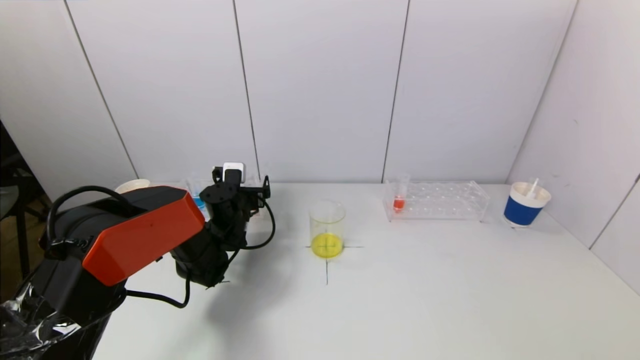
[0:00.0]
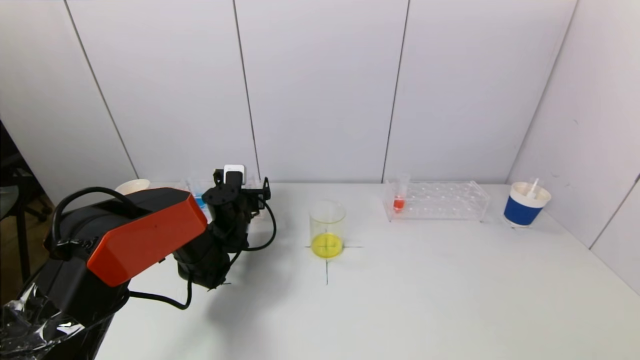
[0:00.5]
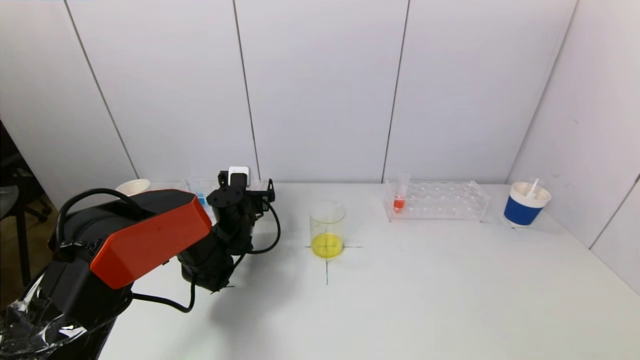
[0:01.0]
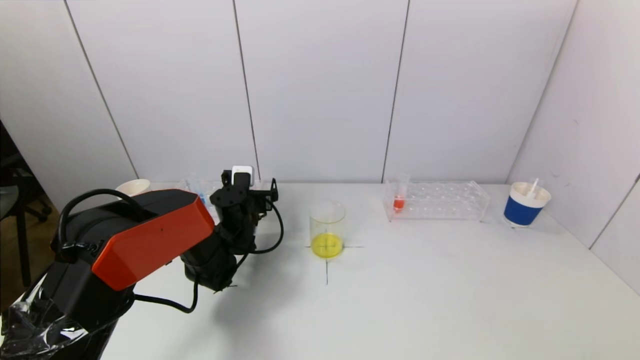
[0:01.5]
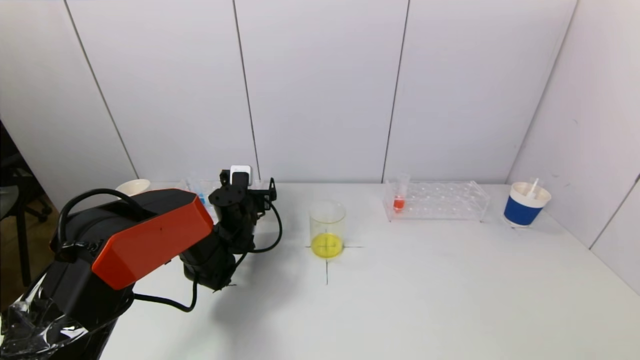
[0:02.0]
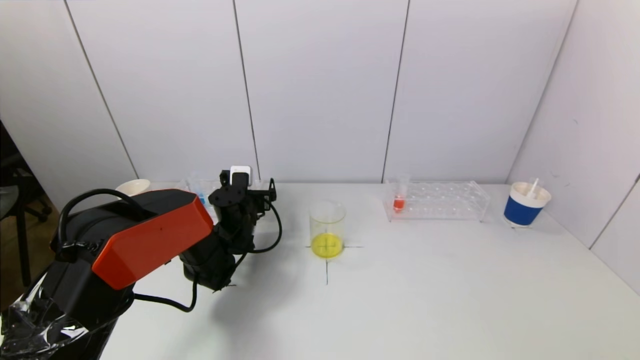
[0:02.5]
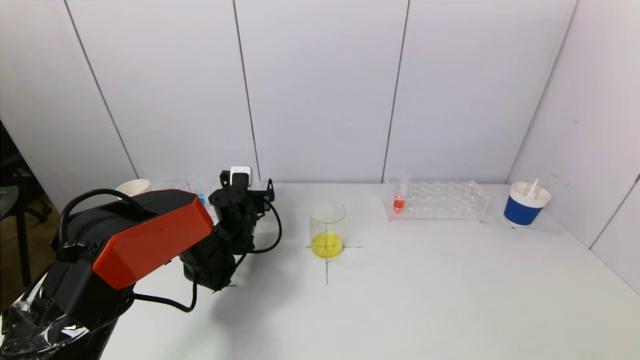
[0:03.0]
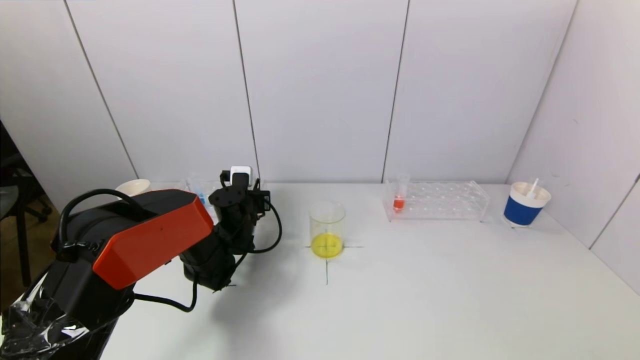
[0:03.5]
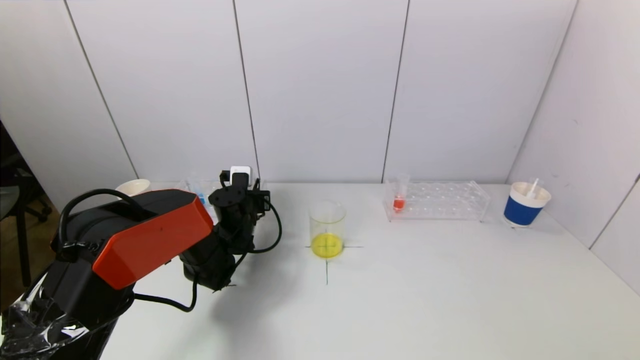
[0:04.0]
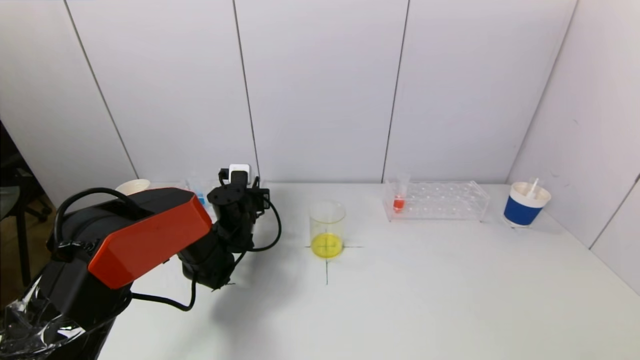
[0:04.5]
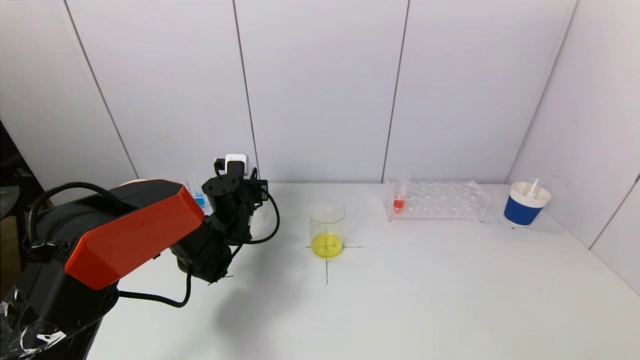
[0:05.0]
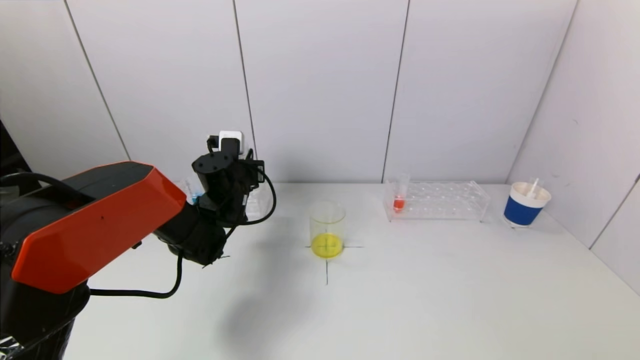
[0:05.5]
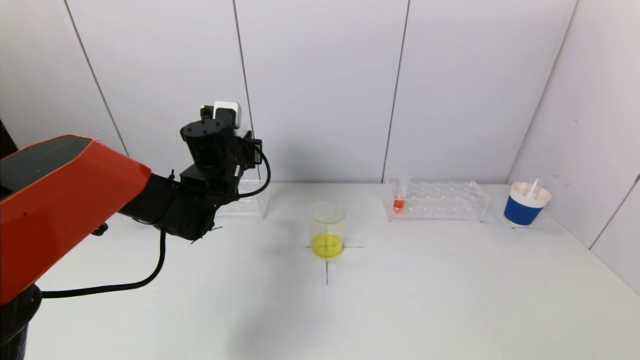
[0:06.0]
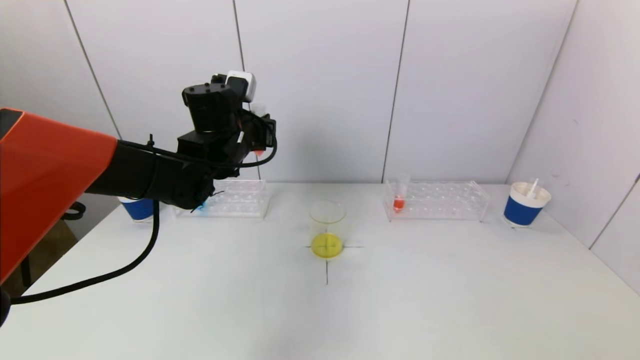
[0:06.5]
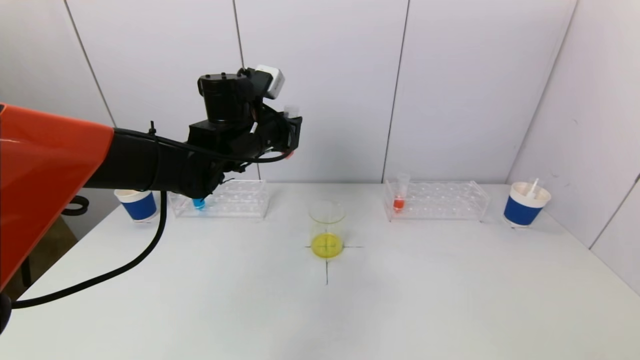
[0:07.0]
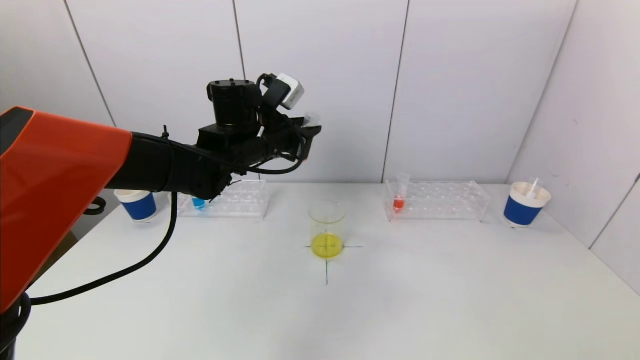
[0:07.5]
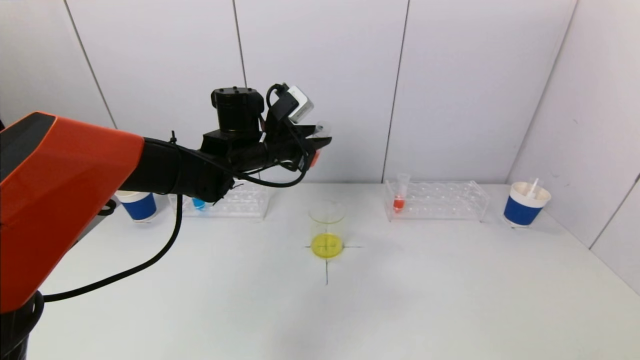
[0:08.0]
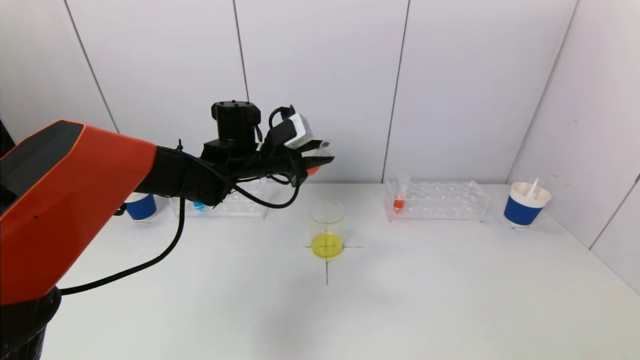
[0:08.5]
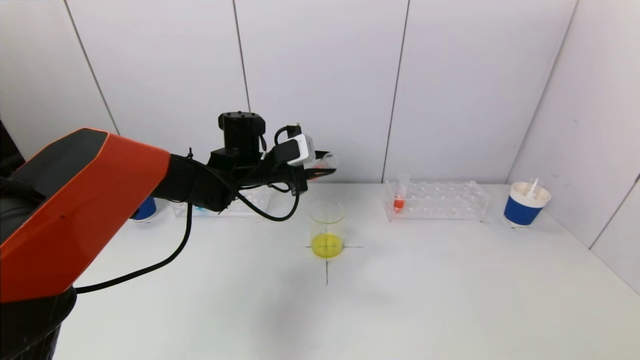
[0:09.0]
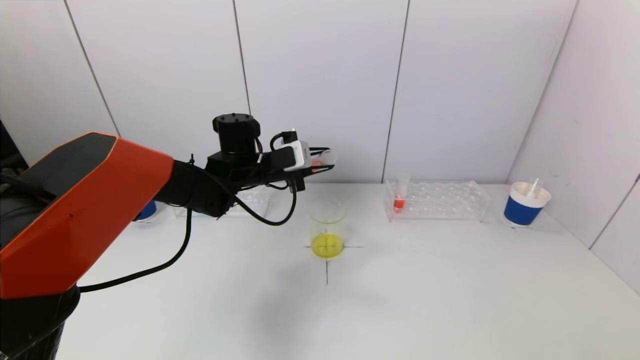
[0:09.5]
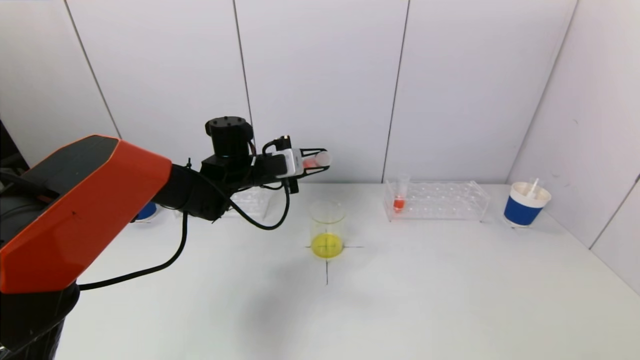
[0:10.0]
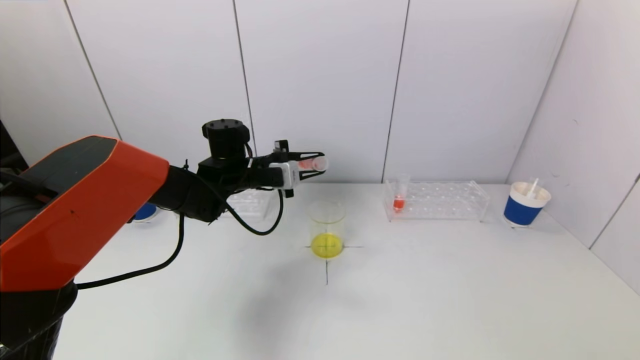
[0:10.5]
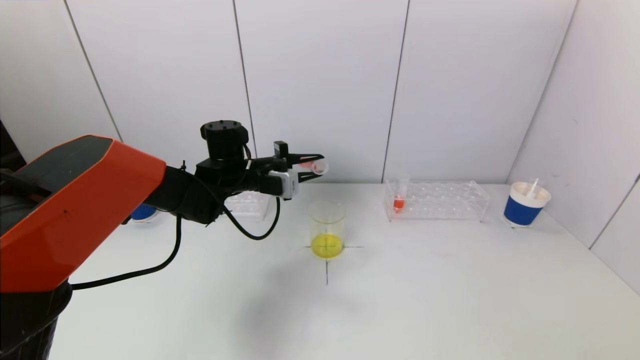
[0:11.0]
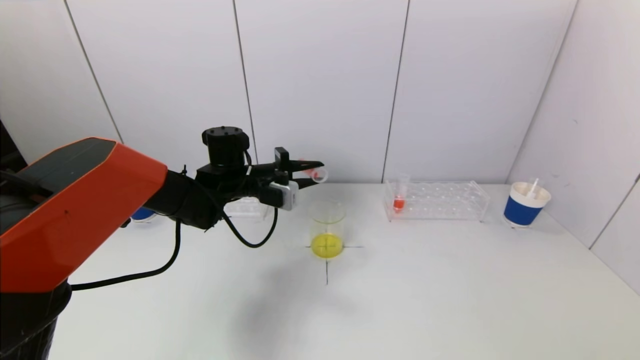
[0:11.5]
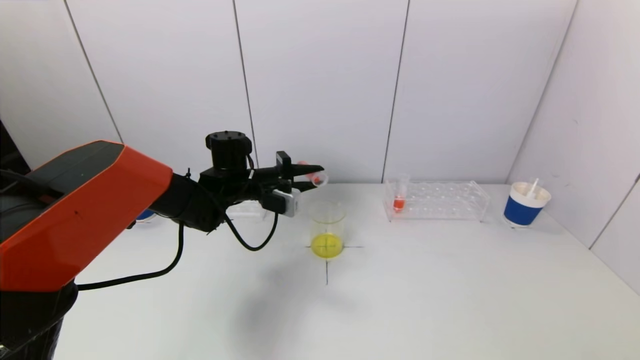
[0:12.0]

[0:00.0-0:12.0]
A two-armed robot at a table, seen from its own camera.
Task of the whole recording: pick up a test tube with pigment on left test tube rack and a test tube with pigment on right test tube rack by grippers and pour them into the beaker.
Step, 0:00.0 to 0:04.0: Grasp the red reagent with the left gripper.
0:00.0 to 0:02.0: The grippers make only small movements.
0:04.0 to 0:06.0: The left gripper moves upward, some 15 cm.
0:06.0 to 0:08.0: The left gripper travels to the right by approximately 5 cm.
0:08.0 to 0:10.0: The left gripper moves downward, approximately 5 cm.

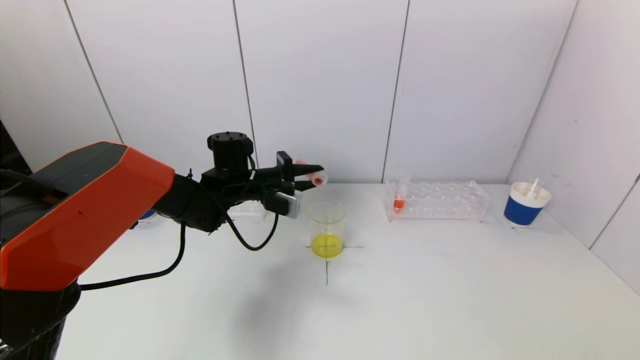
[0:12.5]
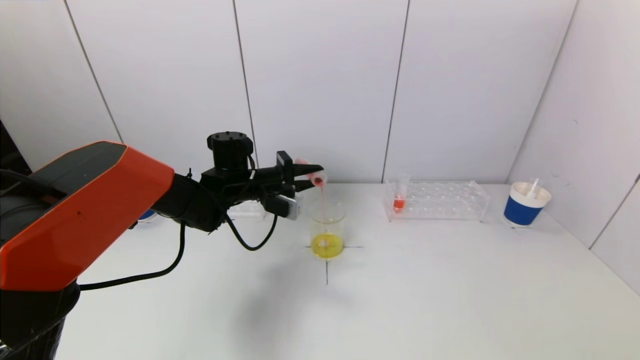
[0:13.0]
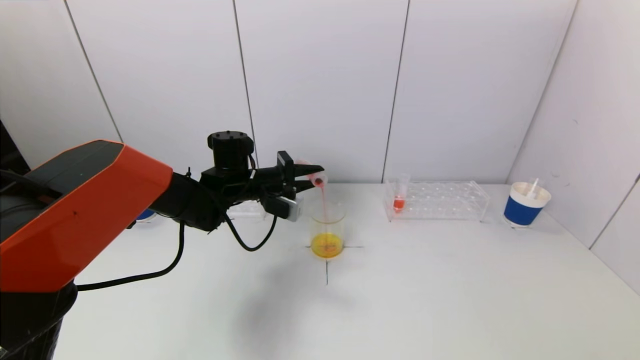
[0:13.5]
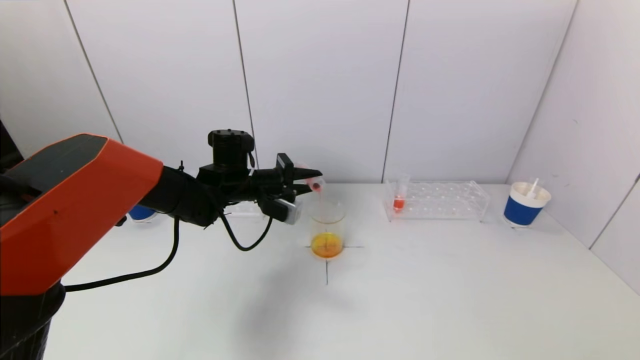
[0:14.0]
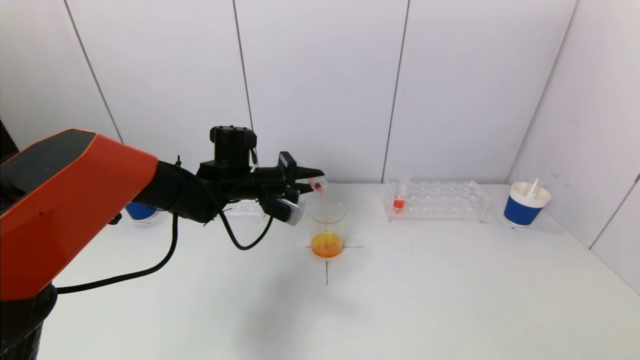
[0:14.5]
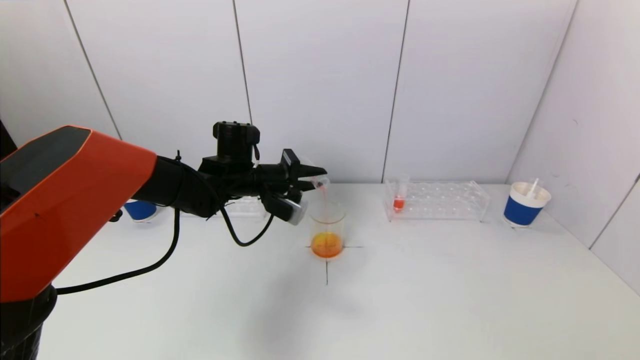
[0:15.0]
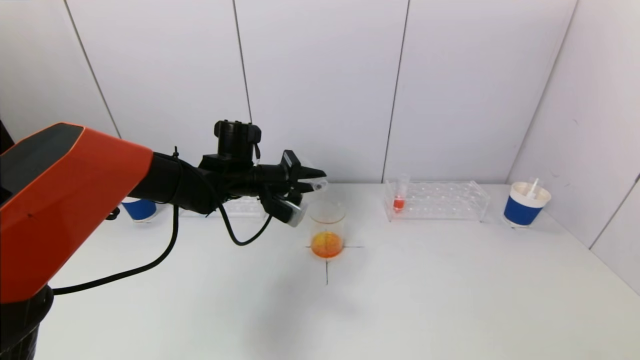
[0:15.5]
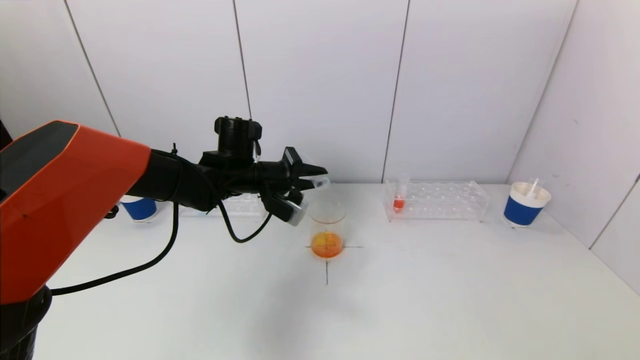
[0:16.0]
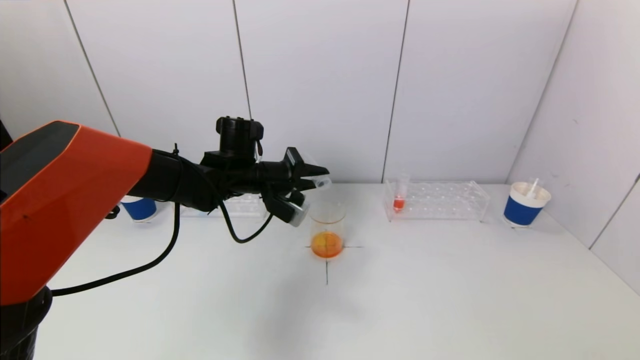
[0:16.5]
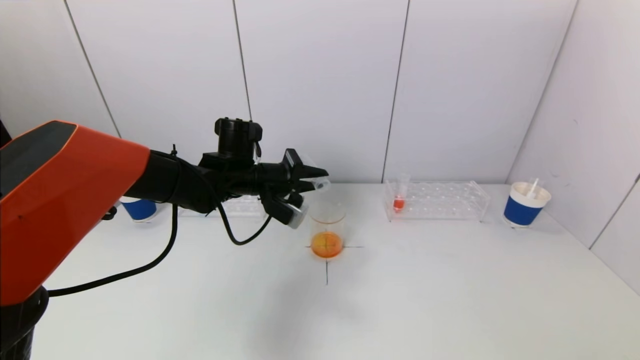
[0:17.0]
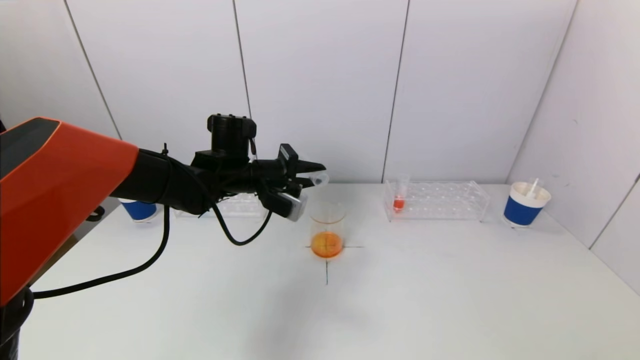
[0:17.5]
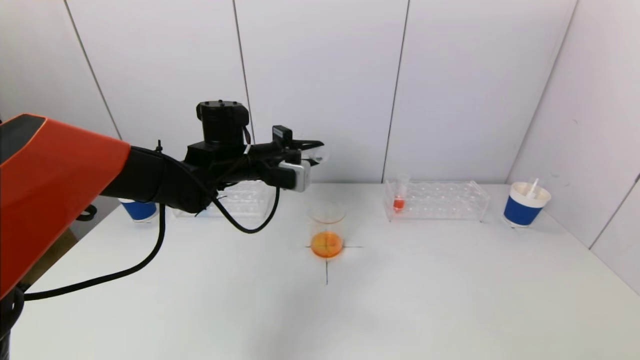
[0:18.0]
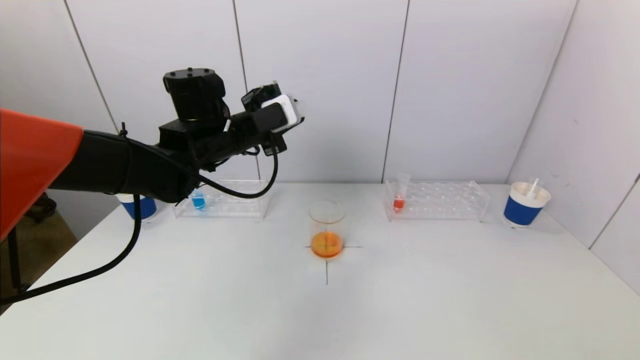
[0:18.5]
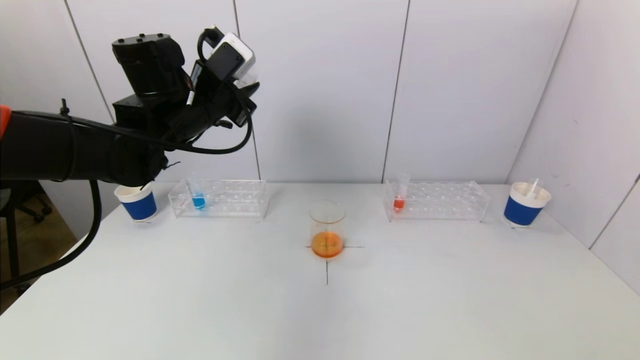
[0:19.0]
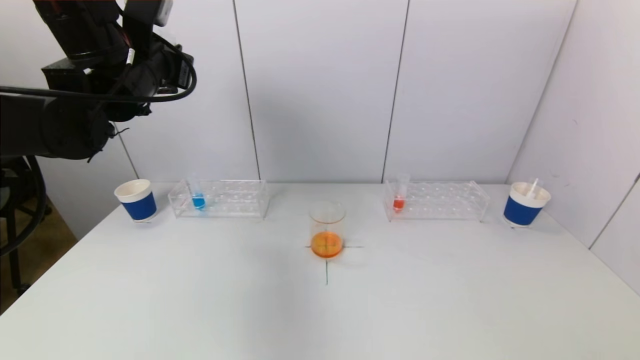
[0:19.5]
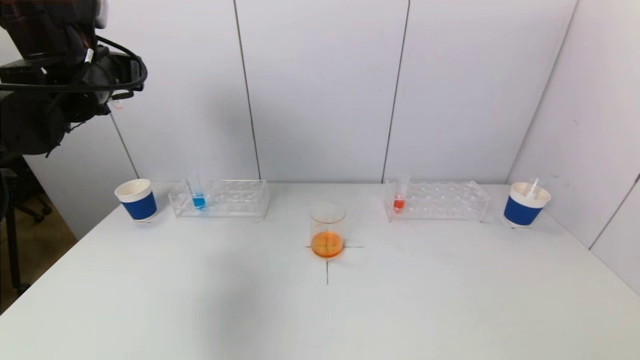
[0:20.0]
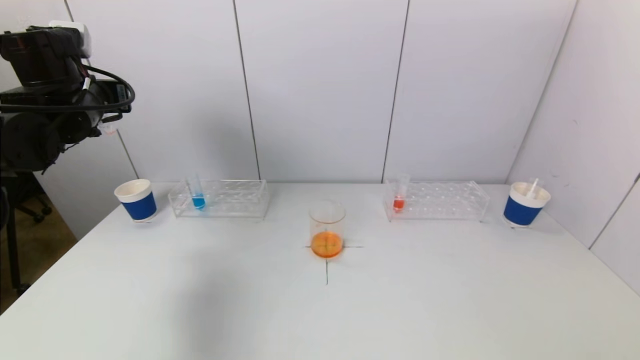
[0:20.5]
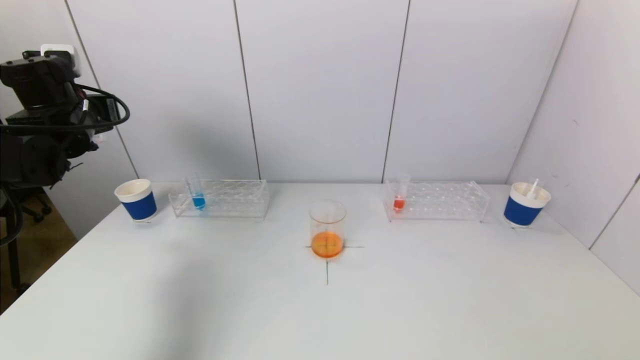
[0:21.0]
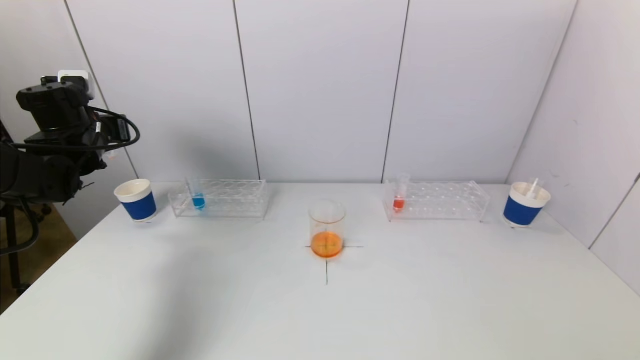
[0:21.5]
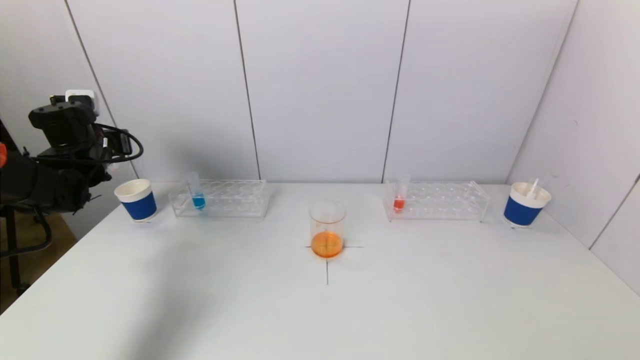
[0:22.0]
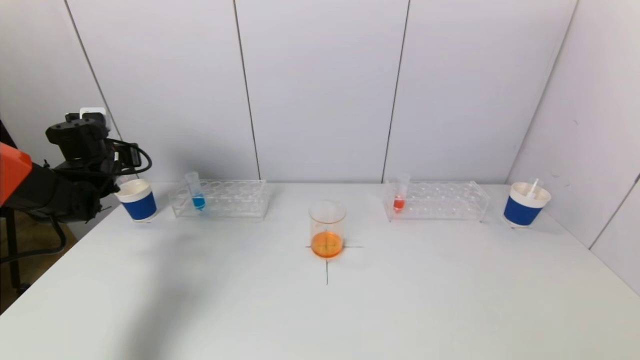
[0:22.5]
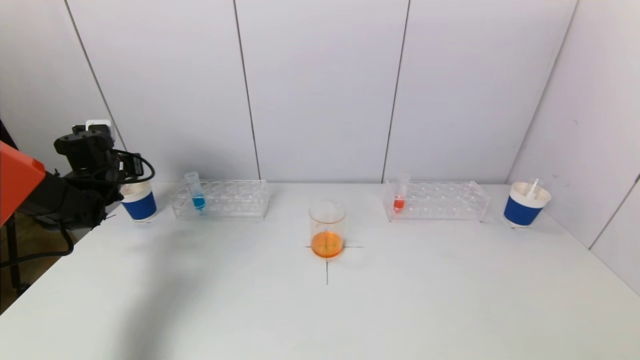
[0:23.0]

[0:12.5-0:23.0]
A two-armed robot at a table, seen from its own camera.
Task of the whole recording: pick up a test tube with pigment on left test tube rack and a test tube with pigment on right test tube rack by grippers and pour them into the beaker.
Step, 0:12.5 to 0:16.5: Pour the red reagent into the graduated cylinder with the left gripper.
0:12.5 to 0:16.5: The grippers stay close to where they were, moving slightly.
0:16.5 to 0:19.0: The left gripper goes some 15 cm upward and to the left.
0:19.0 to 0:21.0: The left gripper moves to the left, roughly 20 cm.
0:21.0 to 0:23.0: The left gripper shifts roughly 15 cm downward and forward.
